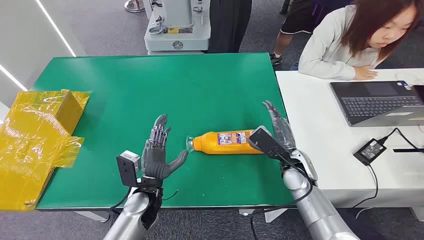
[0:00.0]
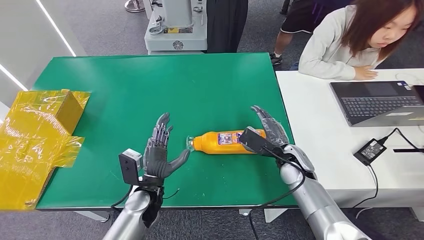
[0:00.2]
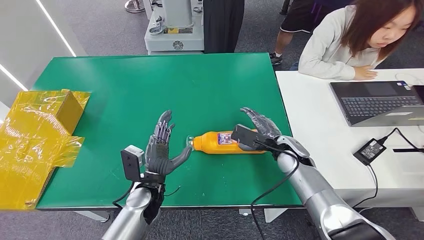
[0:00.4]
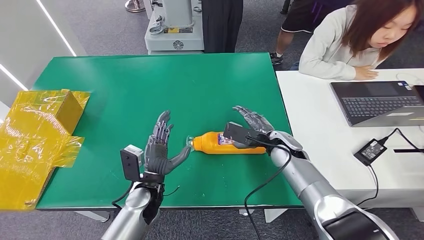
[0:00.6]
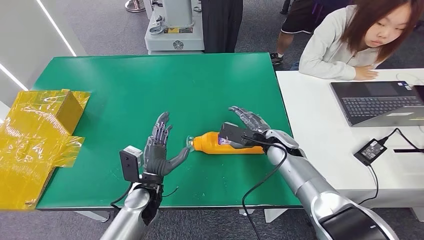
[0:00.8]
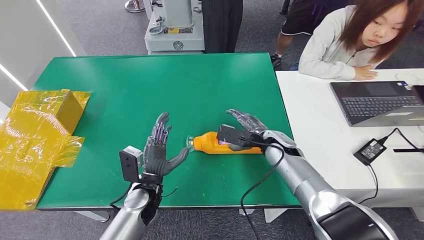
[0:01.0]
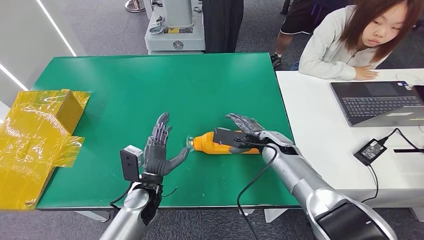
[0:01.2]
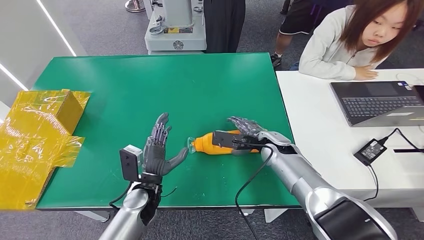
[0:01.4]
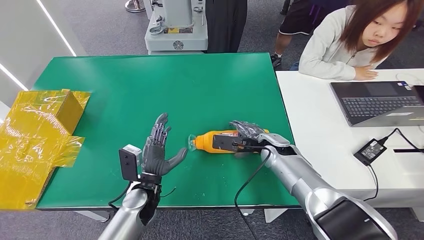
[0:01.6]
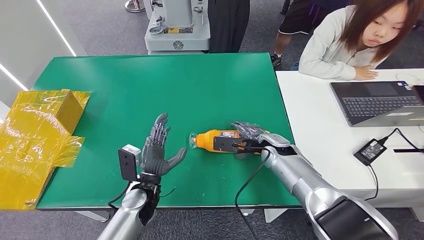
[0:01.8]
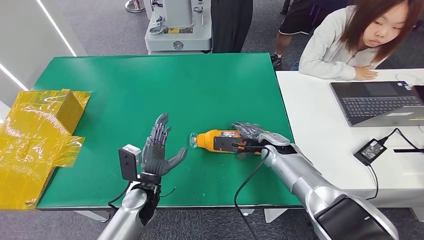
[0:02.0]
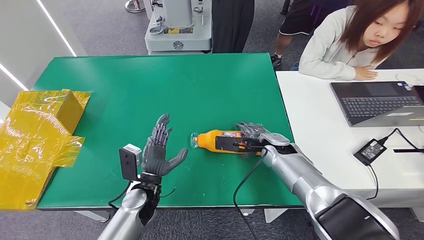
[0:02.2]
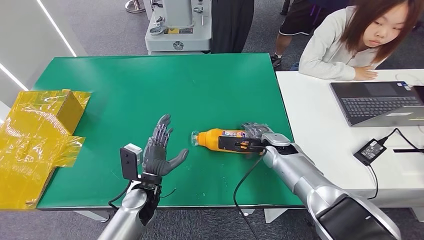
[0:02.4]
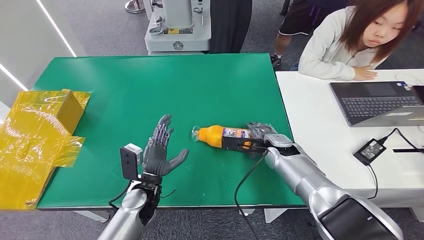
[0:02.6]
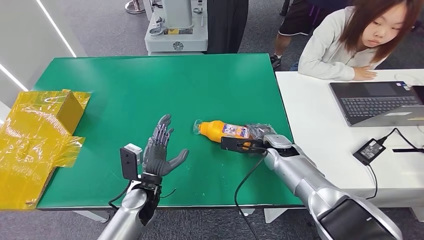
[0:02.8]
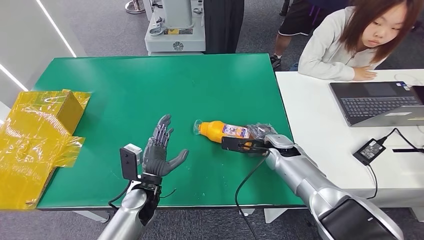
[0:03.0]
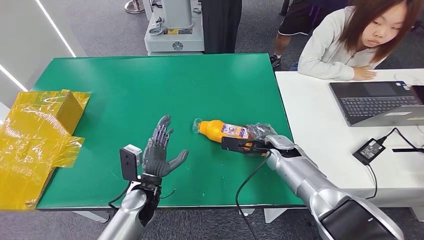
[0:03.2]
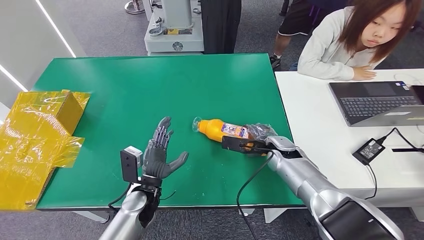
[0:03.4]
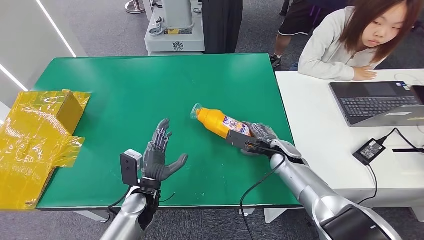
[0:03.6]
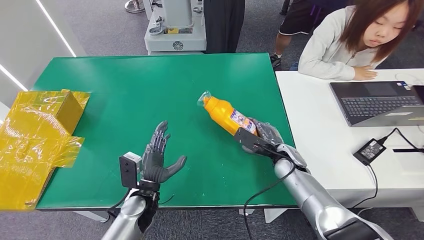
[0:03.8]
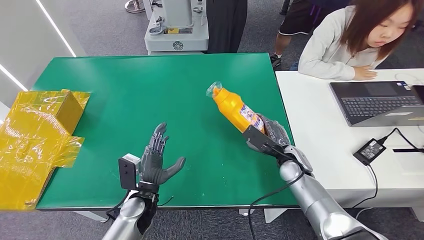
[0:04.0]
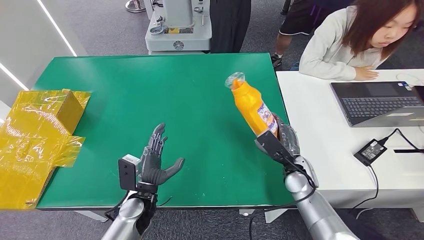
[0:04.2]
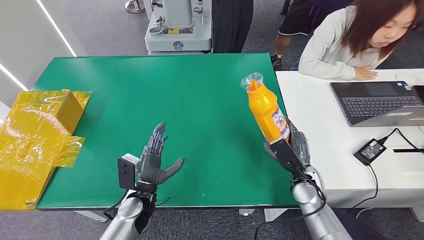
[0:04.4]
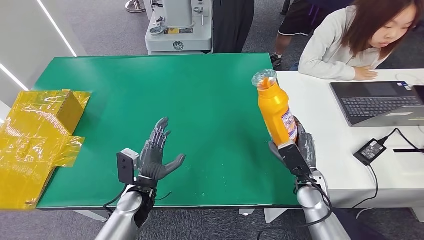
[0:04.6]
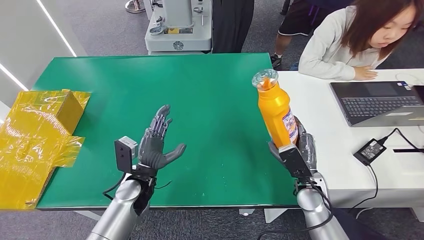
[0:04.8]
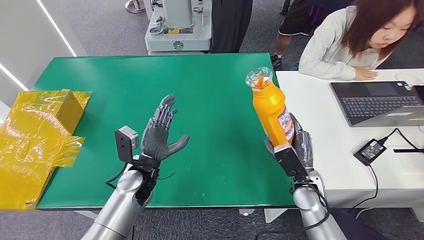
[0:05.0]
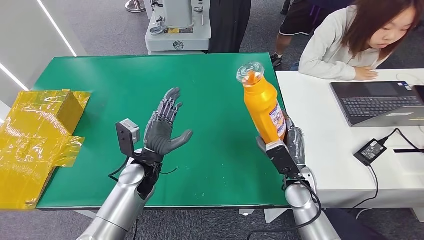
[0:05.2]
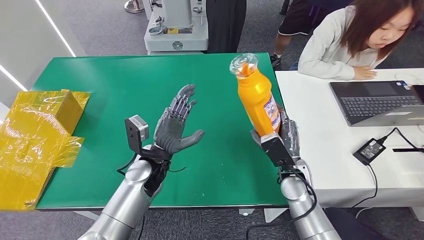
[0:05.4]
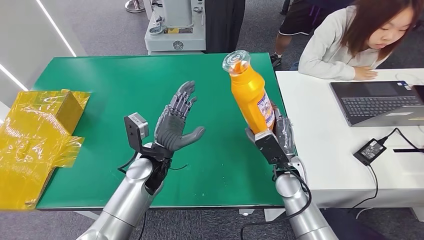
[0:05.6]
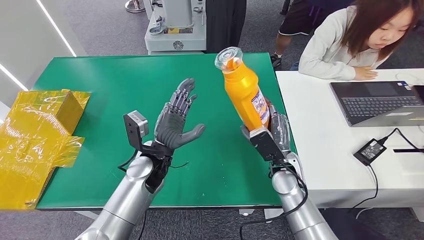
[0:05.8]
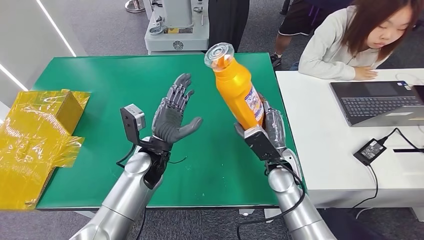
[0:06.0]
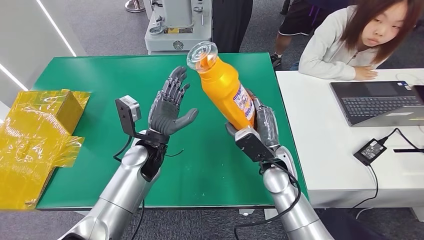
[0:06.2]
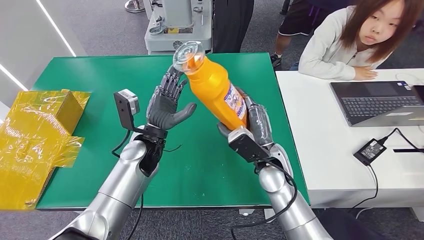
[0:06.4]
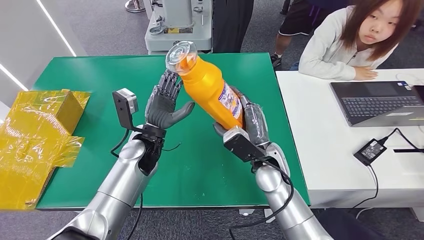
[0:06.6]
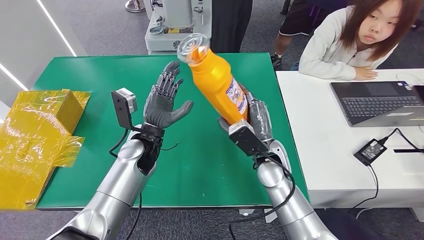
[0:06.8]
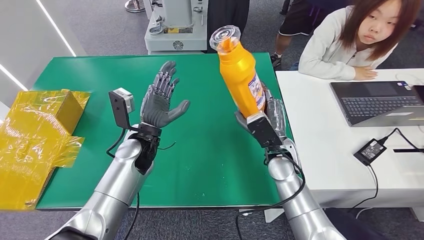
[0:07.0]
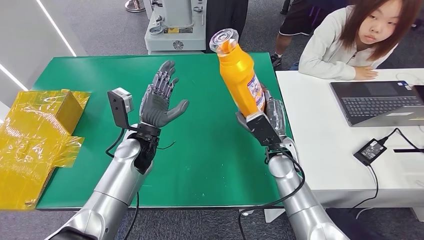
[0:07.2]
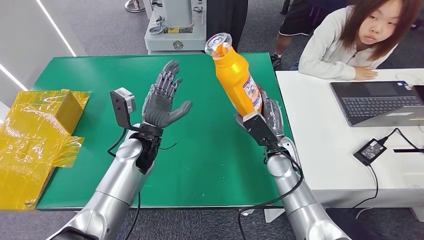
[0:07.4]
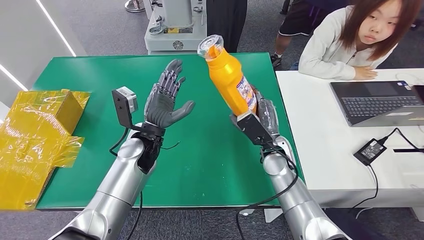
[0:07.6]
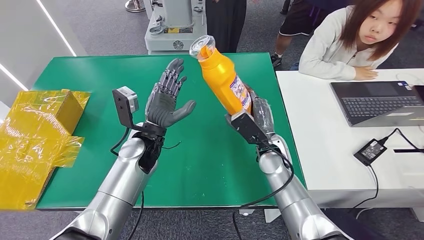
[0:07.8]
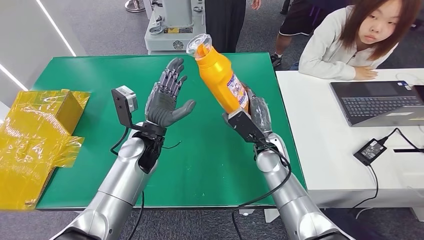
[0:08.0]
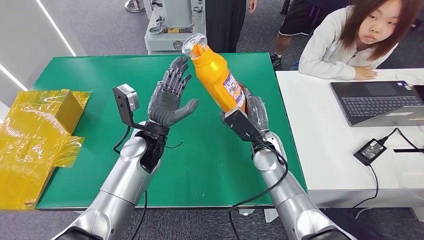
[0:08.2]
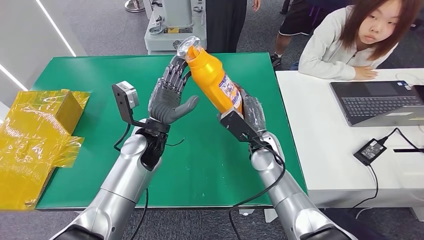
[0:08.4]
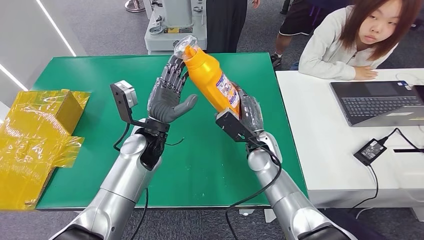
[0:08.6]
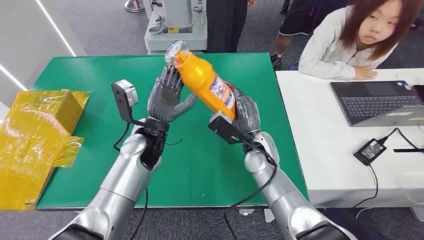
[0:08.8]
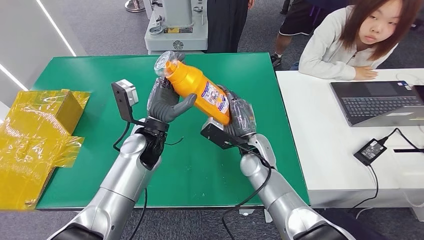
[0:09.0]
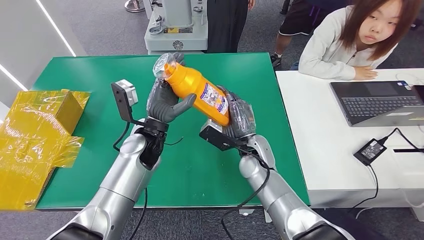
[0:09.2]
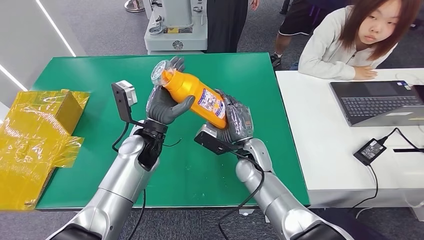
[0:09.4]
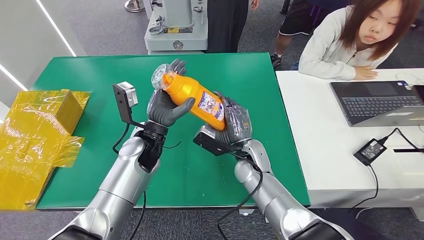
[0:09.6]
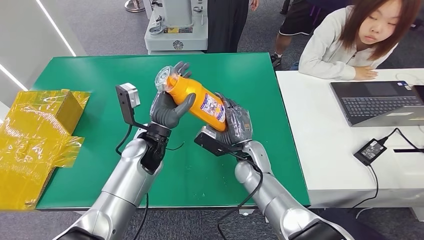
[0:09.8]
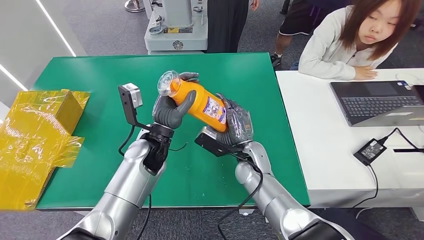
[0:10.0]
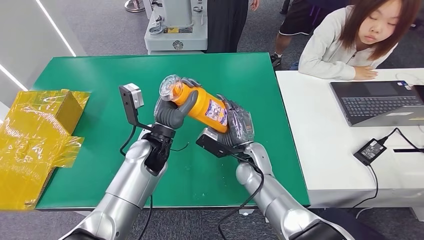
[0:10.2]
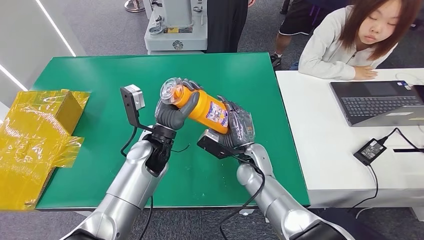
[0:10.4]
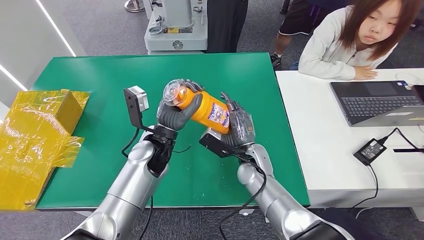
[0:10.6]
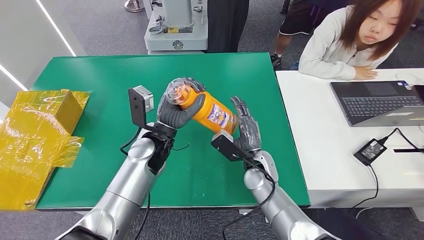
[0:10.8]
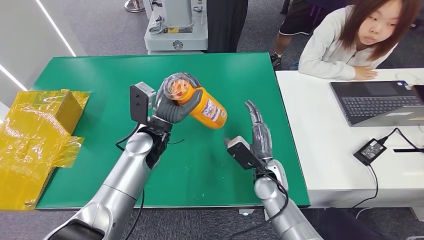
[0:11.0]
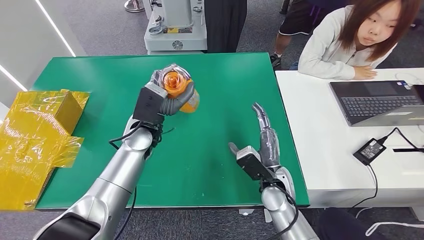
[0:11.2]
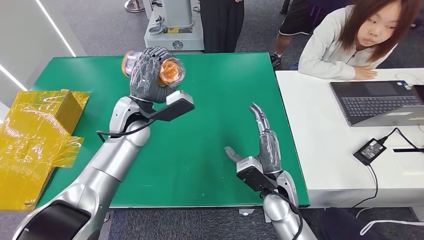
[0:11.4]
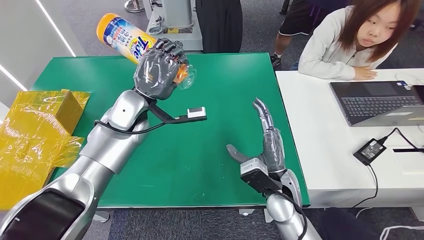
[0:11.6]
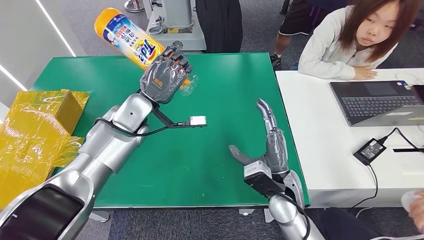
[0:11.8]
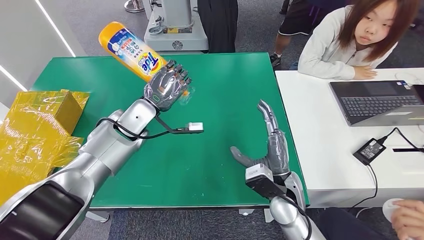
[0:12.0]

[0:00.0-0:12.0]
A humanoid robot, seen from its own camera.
Step, 0:00.0 to 0:04.6: Pick up the bottle from the table.
0:01.6 to 0:03.0: The hands stay close to where they were, moving slightly.
0:03.0 to 0:04.4: The right hand goes approximately 10 cm backward and to the right.
0:04.4 to 0:06.0: The right hand shifts about 10 cm to the left and upward, while the left hand shifts some 15 cm upward and forward.
0:06.0 to 0:07.6: The hands make only small movements.
0:07.6 to 0:09.0: The right hand goes about 5 cm to the left.
0:09.0 to 0:10.4: The hands stay close to where they were, moving slightly.

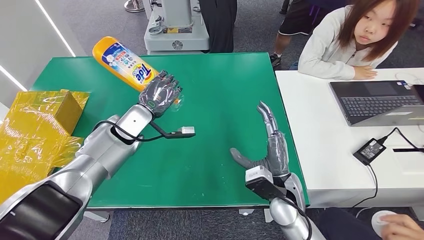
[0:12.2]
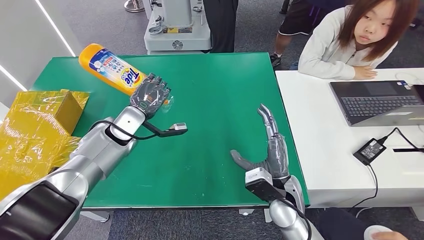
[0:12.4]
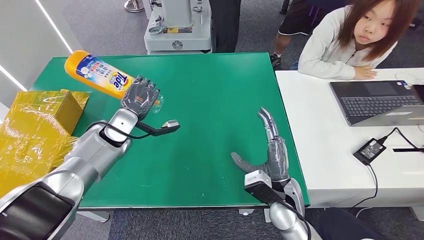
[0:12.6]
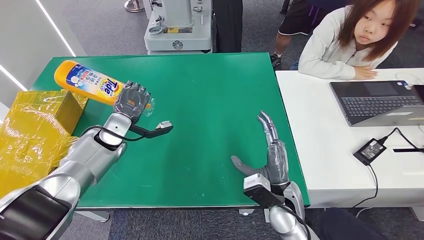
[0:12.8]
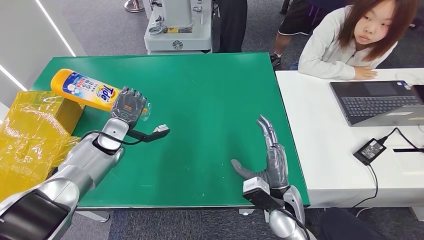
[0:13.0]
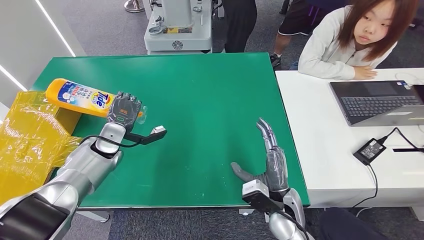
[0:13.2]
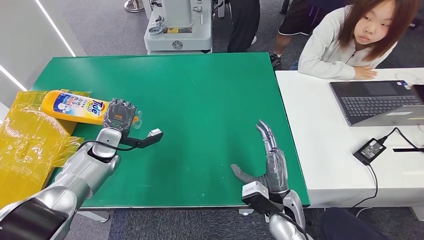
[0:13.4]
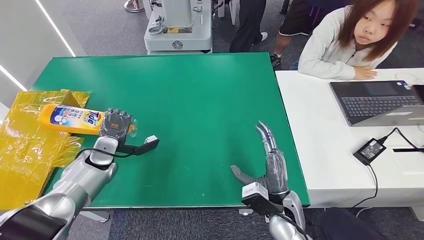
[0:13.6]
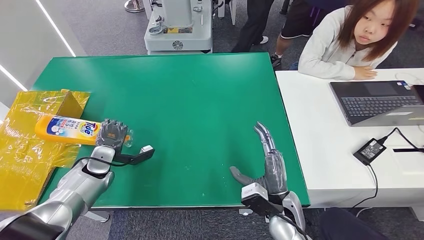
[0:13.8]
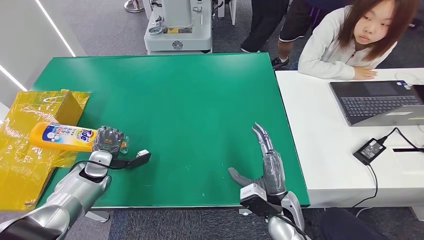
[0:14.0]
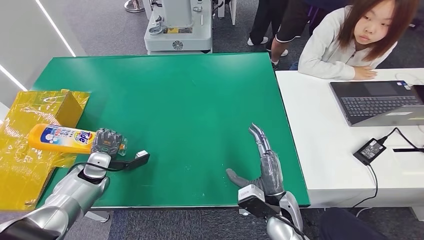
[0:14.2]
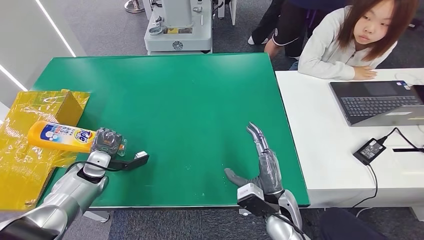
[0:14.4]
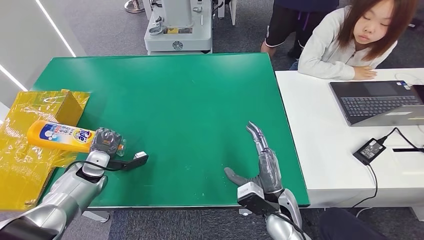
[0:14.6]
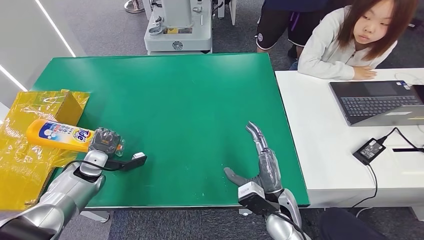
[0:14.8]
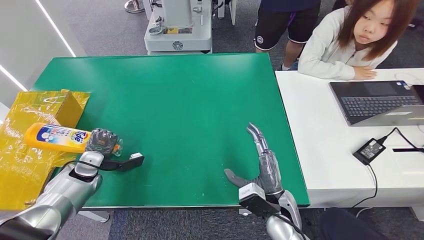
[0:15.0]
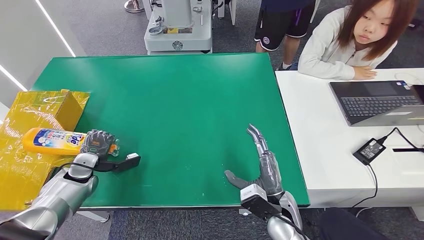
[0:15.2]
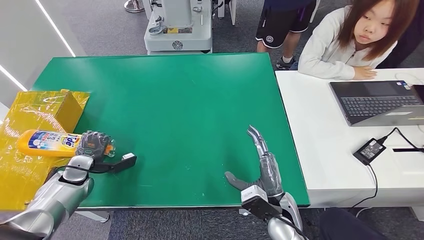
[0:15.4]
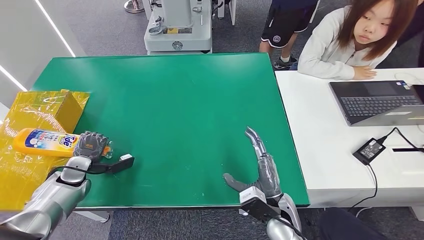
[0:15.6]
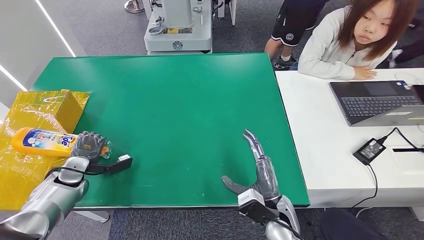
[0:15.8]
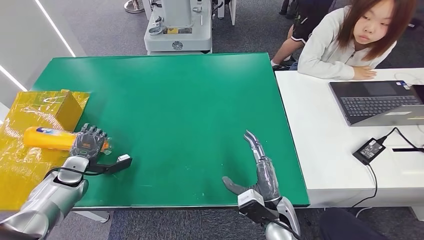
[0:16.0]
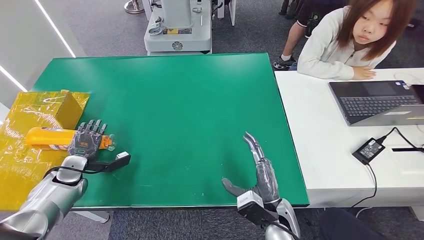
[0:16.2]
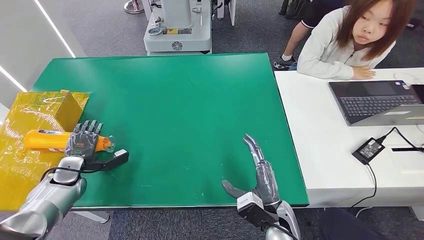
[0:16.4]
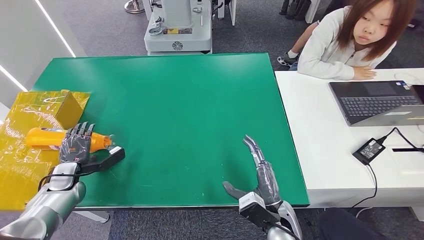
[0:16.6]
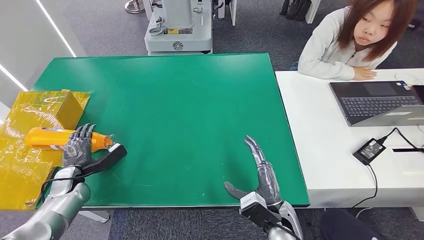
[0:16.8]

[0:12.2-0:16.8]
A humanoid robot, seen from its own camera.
Step, 0:12.2 to 0:16.8: Turn the bottle to the front side.
0:13.8 to 0:15.2: The left hand goes some 5 cm to the left.
